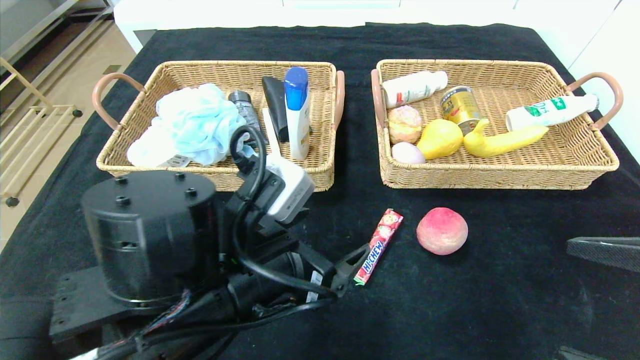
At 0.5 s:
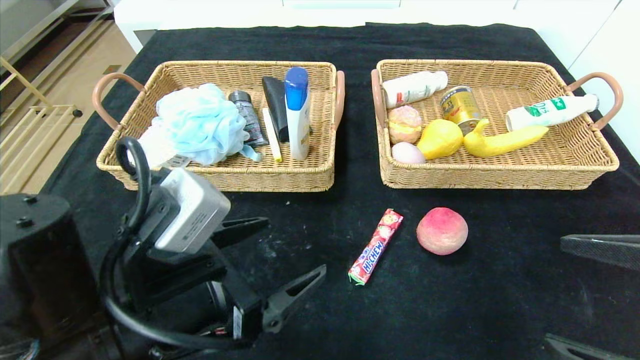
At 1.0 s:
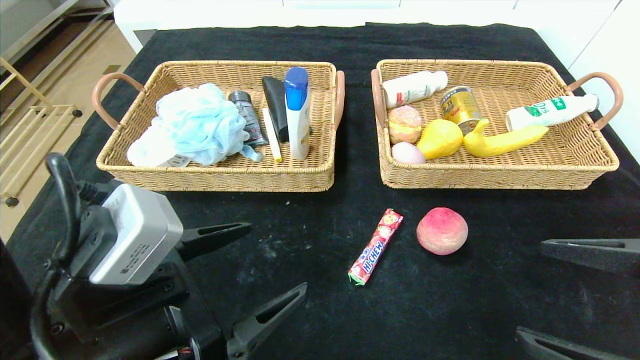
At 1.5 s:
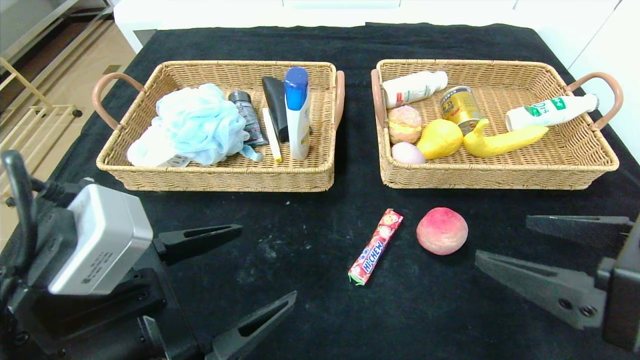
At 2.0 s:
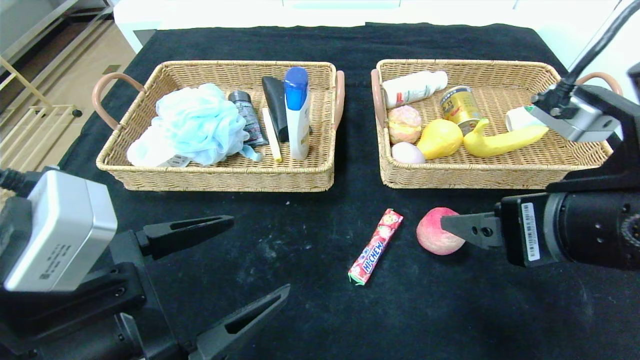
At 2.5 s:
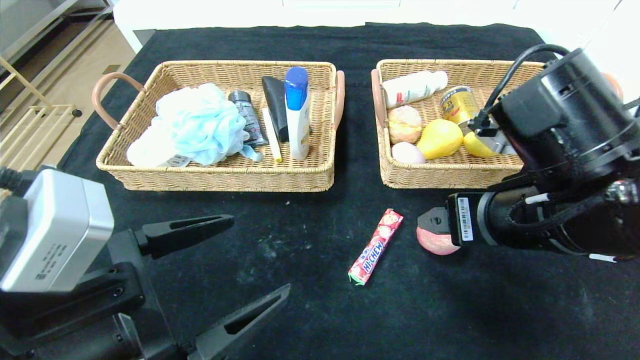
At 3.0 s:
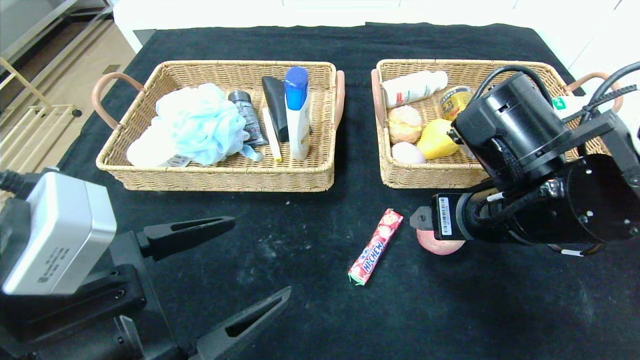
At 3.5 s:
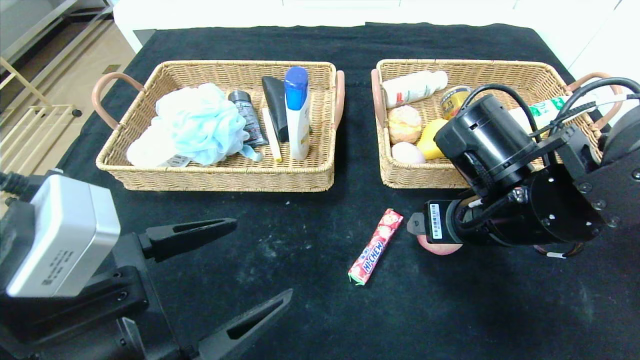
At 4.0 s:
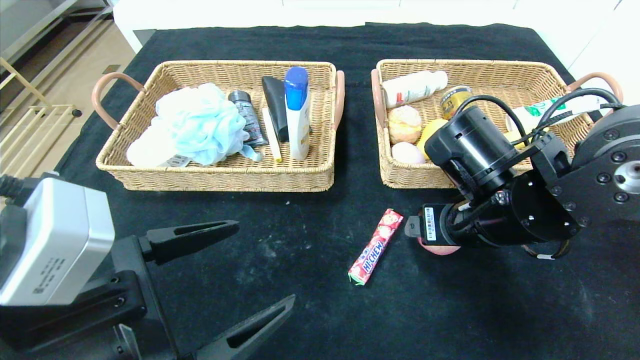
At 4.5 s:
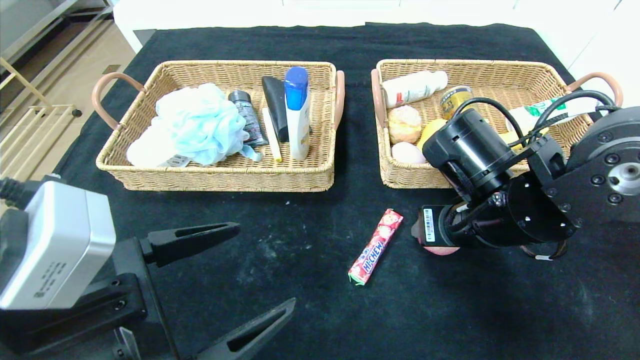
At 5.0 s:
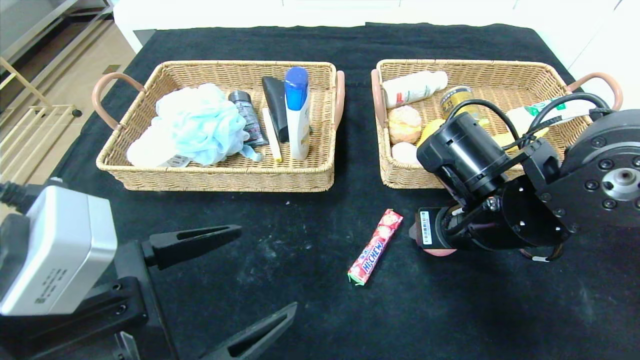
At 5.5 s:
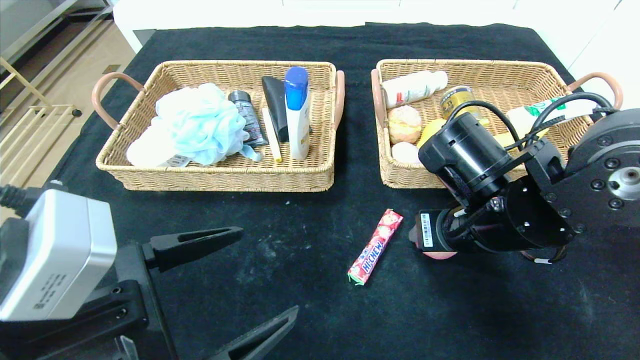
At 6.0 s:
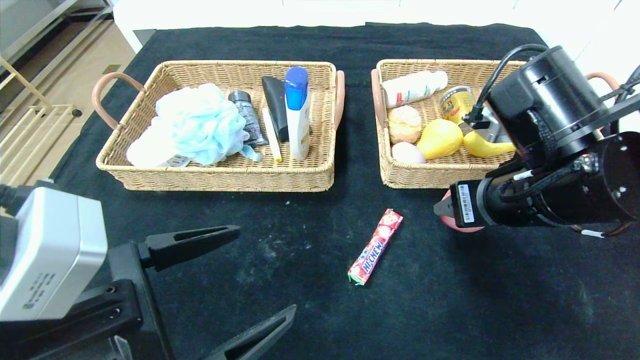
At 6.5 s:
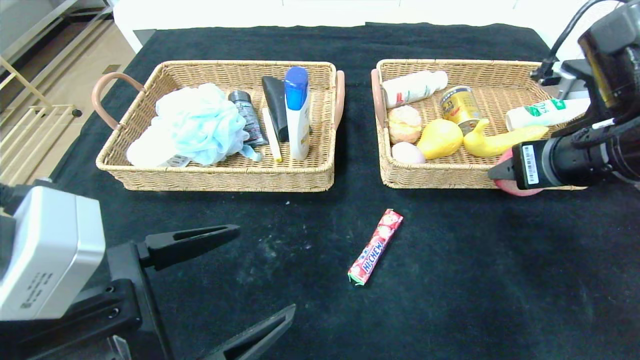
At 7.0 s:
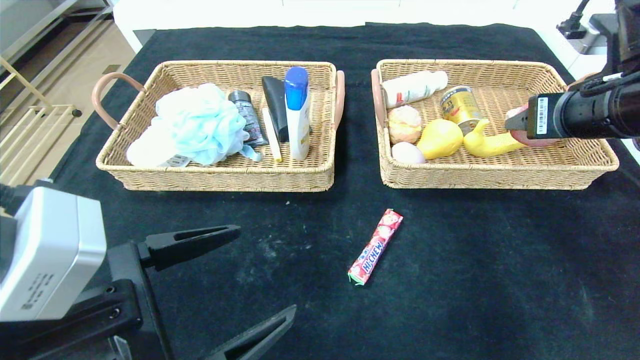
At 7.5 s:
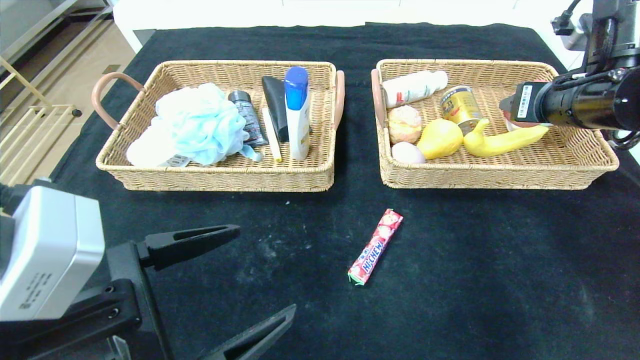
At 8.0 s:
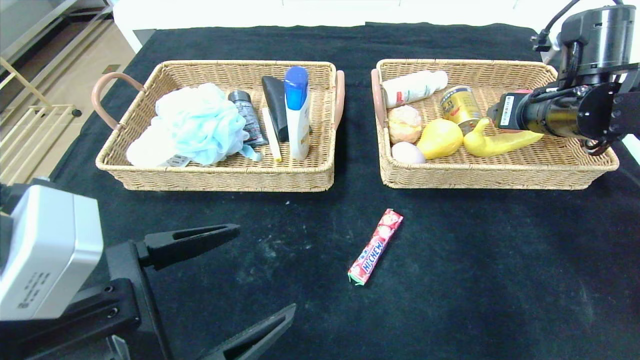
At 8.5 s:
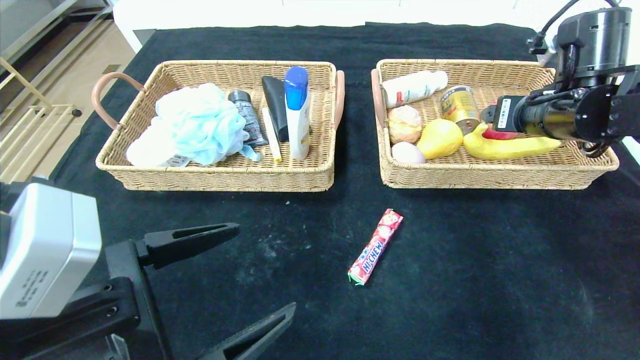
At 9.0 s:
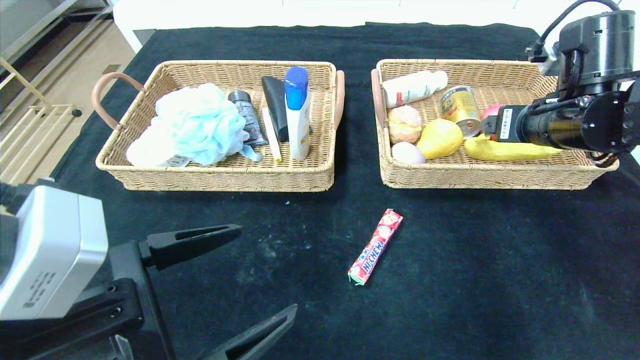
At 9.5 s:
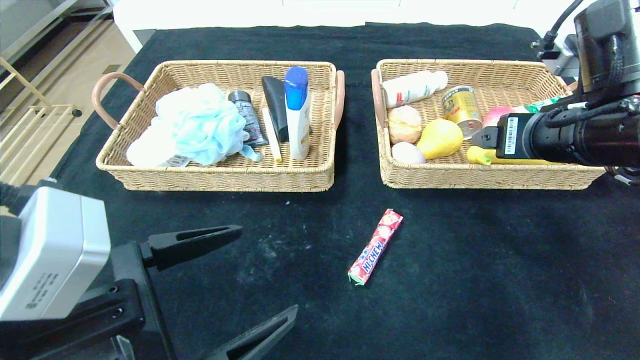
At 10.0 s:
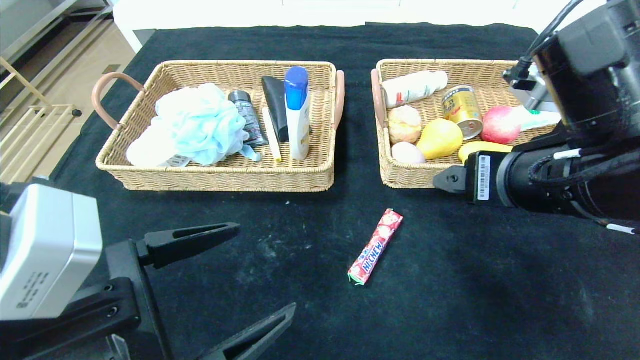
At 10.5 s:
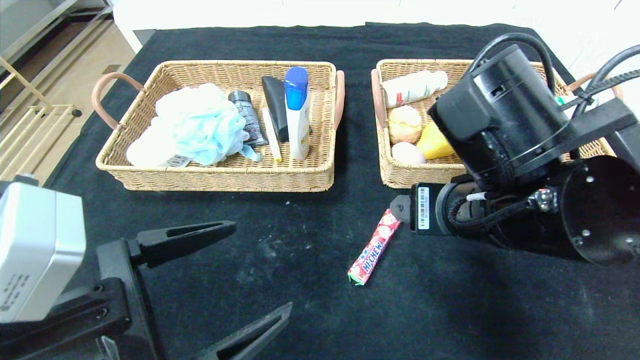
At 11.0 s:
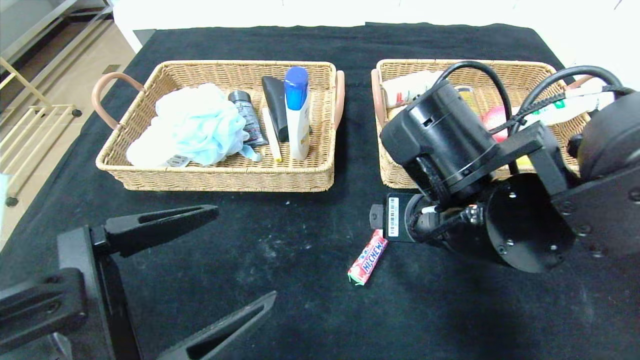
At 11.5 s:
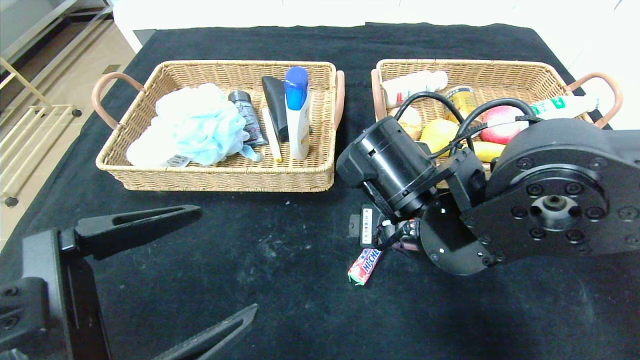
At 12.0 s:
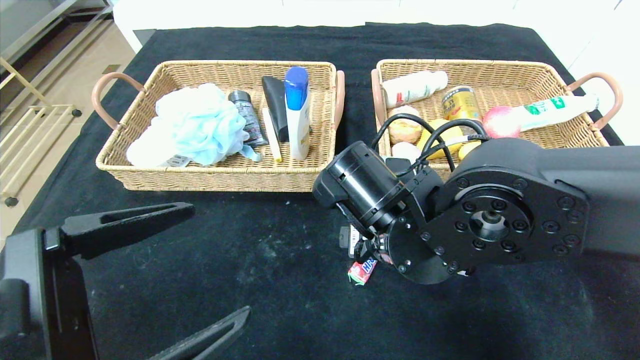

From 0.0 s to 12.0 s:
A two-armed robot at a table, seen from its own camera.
Step, from 0.0 s to 8.5 s: Grasp the peach and put it in the right basket.
From 0.0 s to 2.0 s: The left gripper shifts approximately 10 cm to the left and backward, while the right gripper travels forward and to the left by roughly 10 cm.
From 2.0 s to 4.0 s: The right gripper moves forward and downward, approximately 10 cm.
From 4.0 s to 6.0 s: The right gripper changes place by about 5 cm.
From 6.0 s to 8.0 s: The right gripper goes some 15 cm forward and to the right.
From 8.0 s to 10.0 s: The right gripper moves backward and to the left, approximately 20 cm.
From 10.0 s to 12.0 s: The right gripper heads to the left and downward, covering about 15 cm.

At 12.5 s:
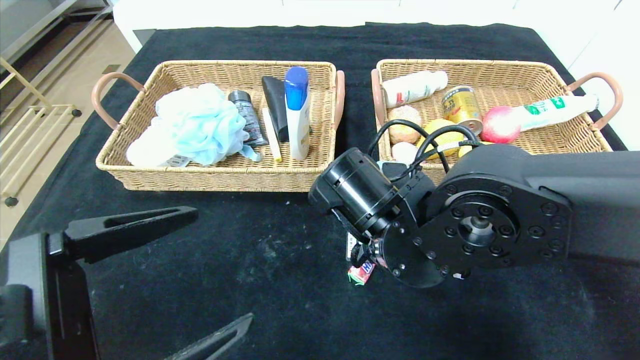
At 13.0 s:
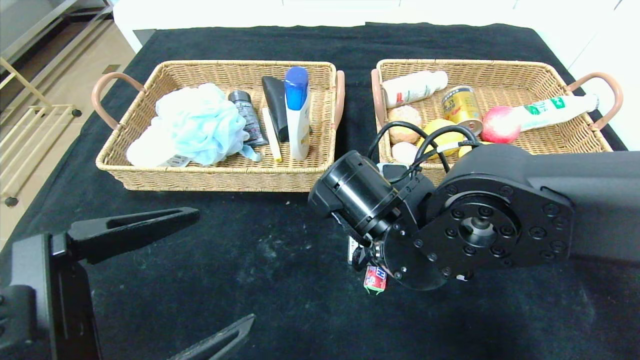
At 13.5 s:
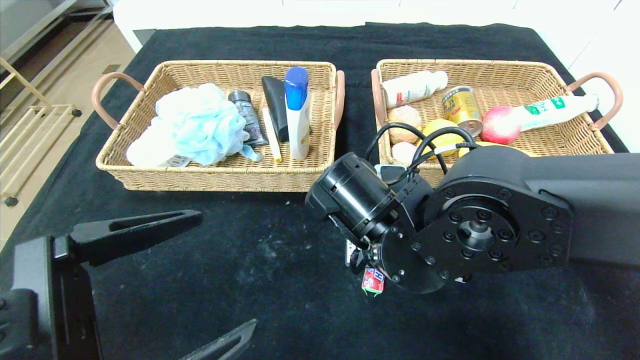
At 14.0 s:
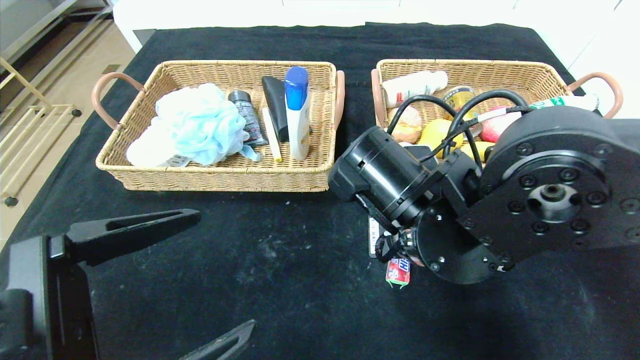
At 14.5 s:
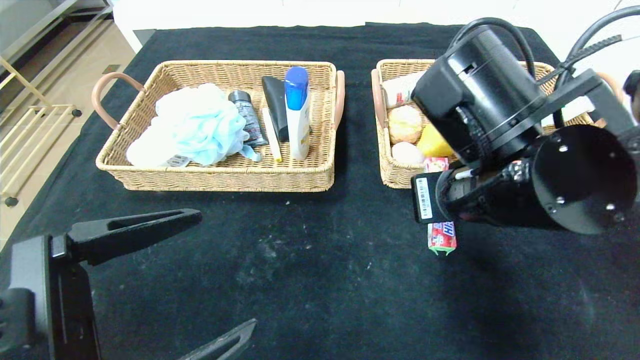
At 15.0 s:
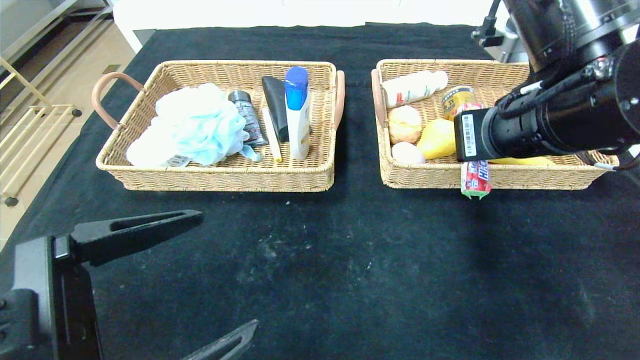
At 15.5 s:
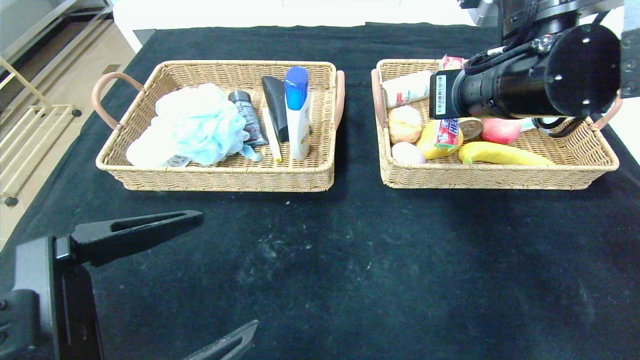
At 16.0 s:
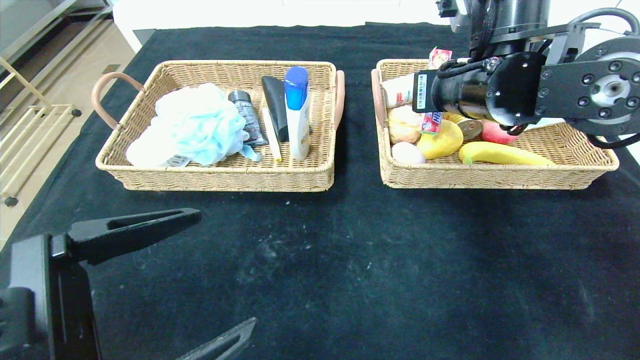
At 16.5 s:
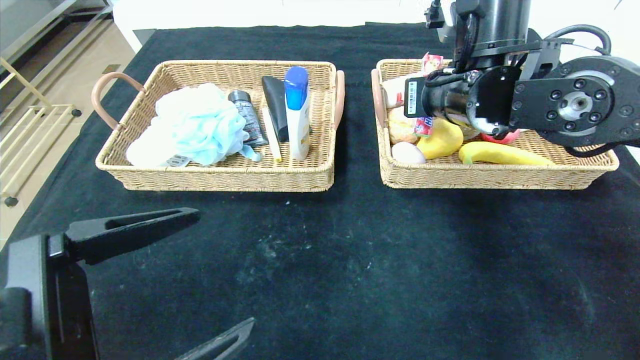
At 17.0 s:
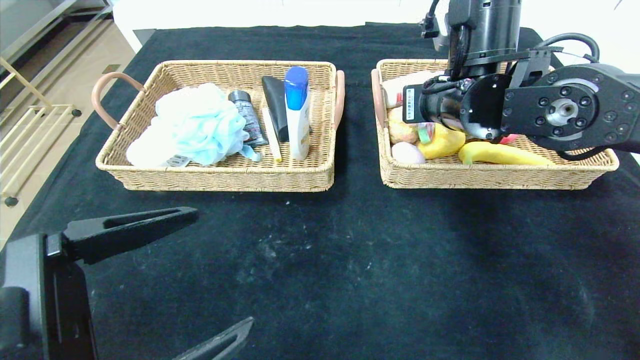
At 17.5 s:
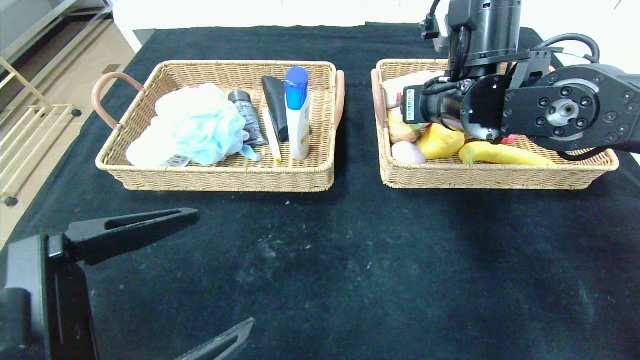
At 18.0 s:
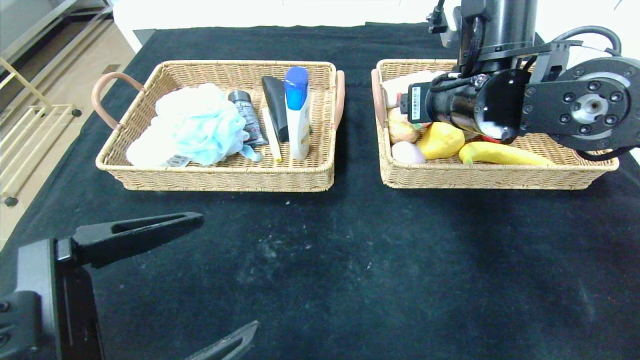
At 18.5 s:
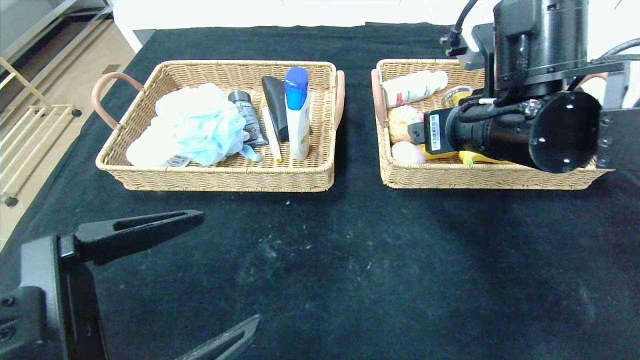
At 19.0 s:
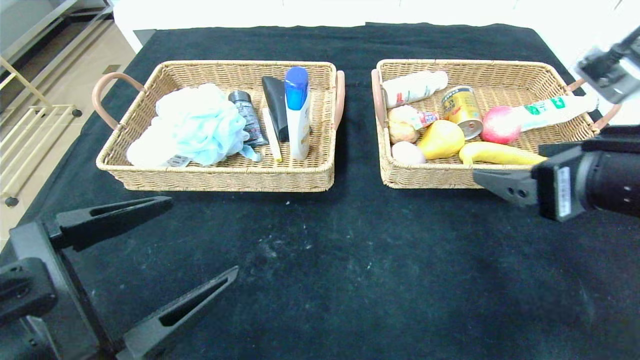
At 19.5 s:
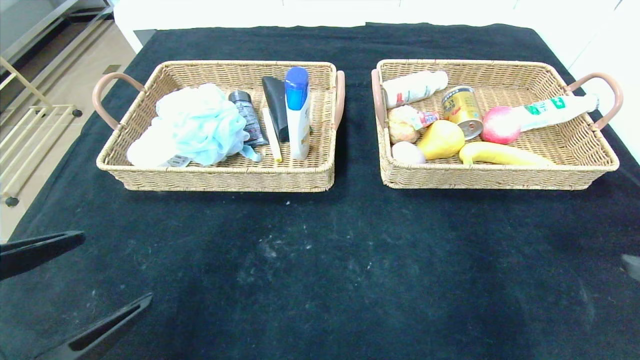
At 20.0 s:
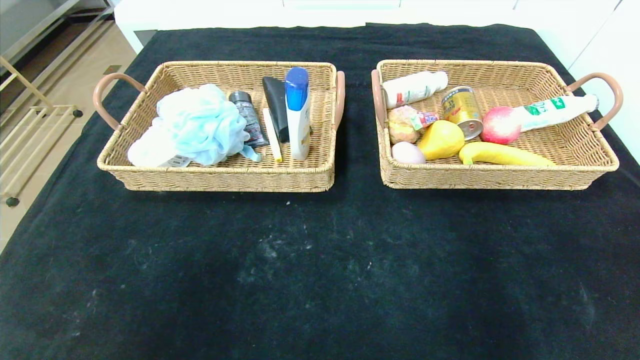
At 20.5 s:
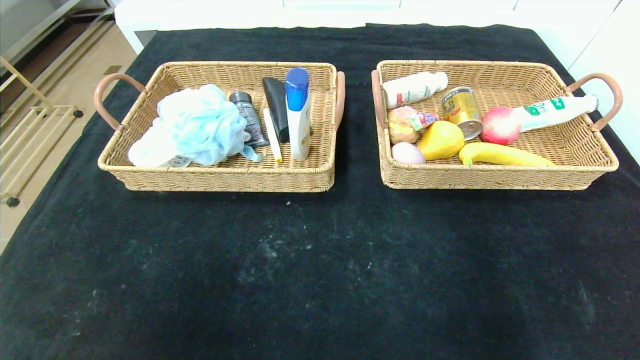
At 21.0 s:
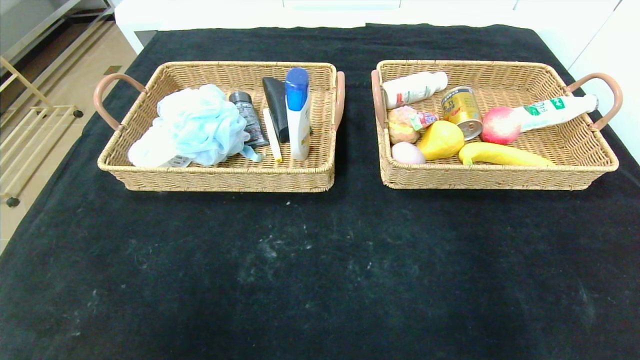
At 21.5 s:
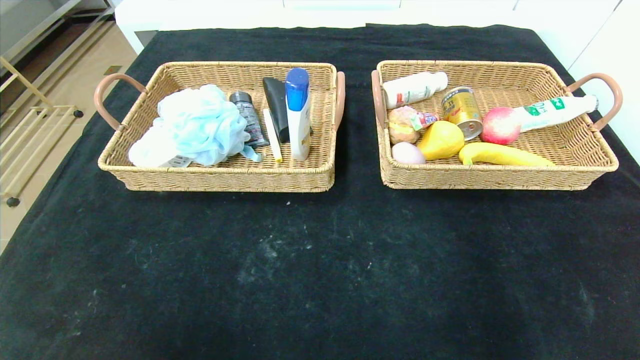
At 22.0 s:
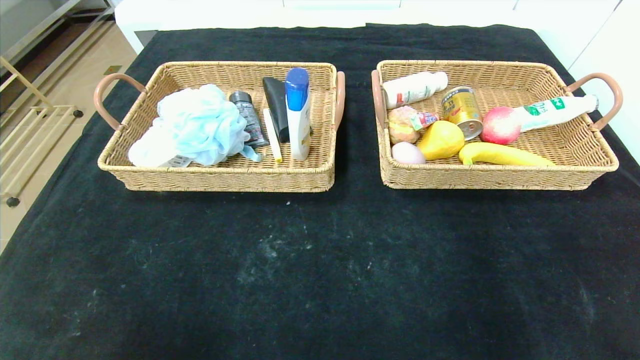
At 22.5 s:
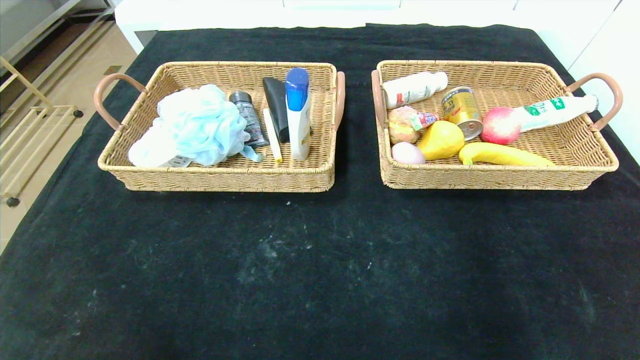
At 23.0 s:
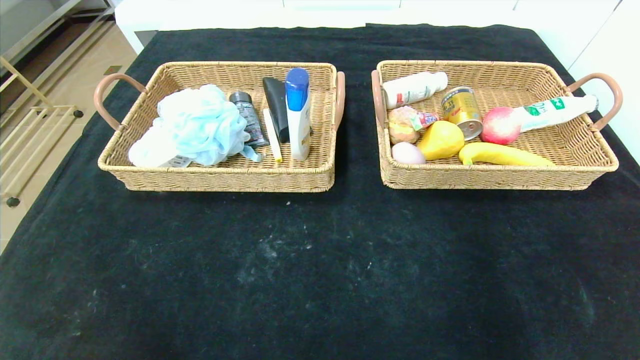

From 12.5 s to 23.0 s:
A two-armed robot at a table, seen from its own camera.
Step, from 12.5 s to 17.5 s: Grasp the fruit fudge and put it in the right basket.
From 12.5 s to 14.5 s: The right gripper is displaced upward and to the right by some 10 cm, and closes up.
From 14.5 s to 16.5 s: The right gripper travels forward by some 10 cm.
From 16.5 s to 19.0 s: The right gripper moves backward and to the right, about 20 cm, and opens its fingers.
From 19.0 s to 21.0 s: The right gripper heads backward, downward and to the right, covering approximately 30 cm, while the left gripper is displaced backward and to the left by some 20 cm.
